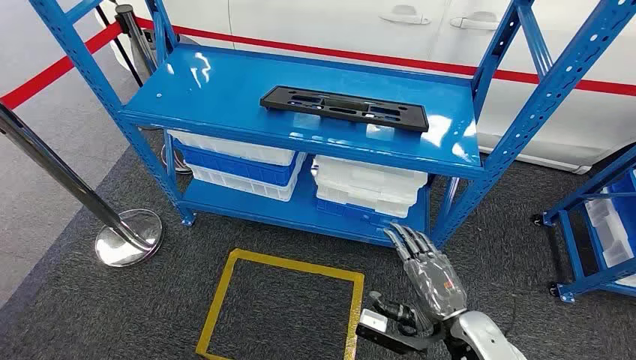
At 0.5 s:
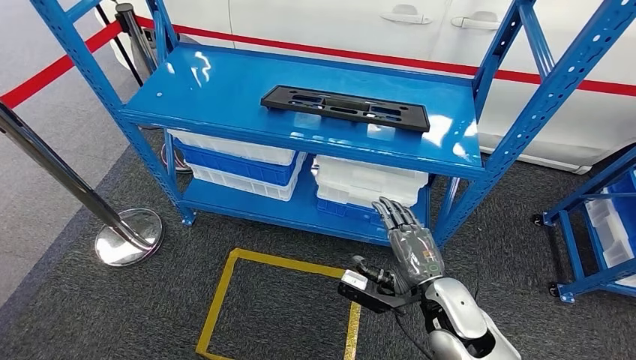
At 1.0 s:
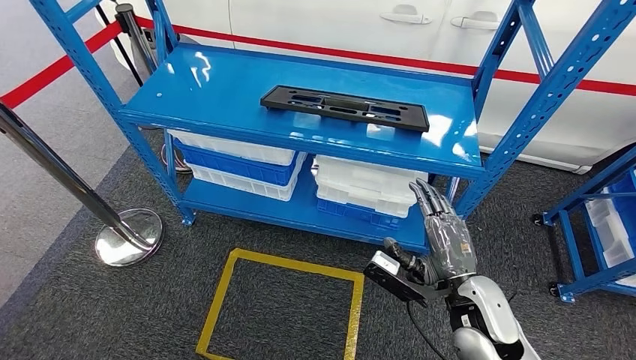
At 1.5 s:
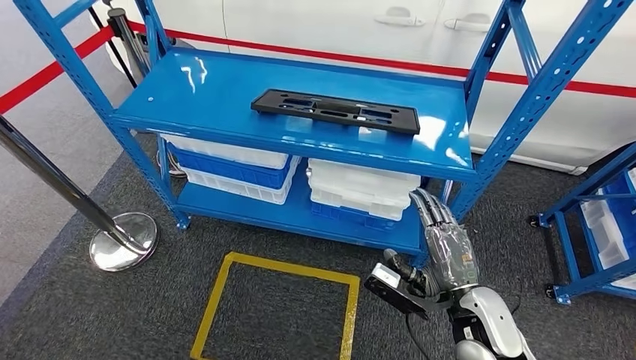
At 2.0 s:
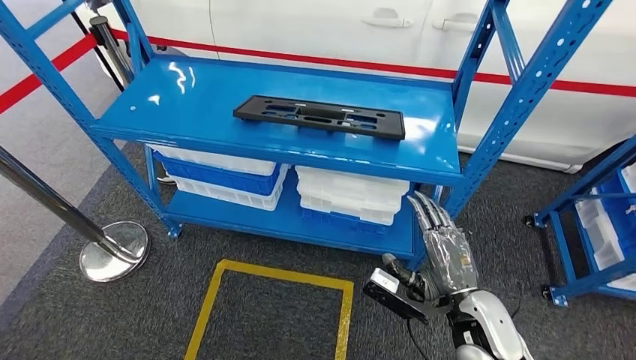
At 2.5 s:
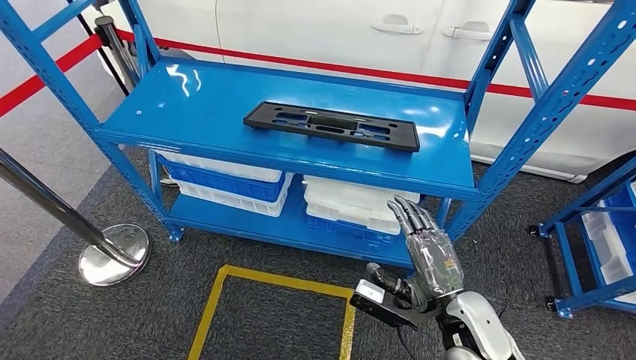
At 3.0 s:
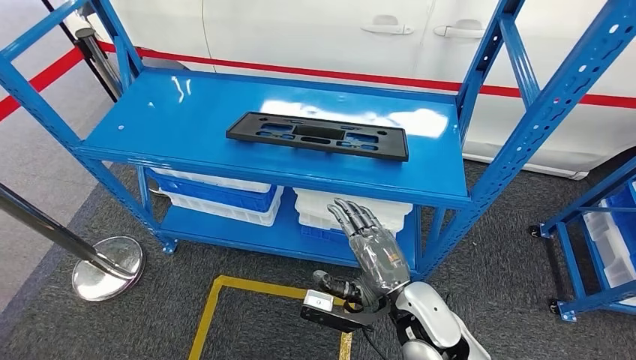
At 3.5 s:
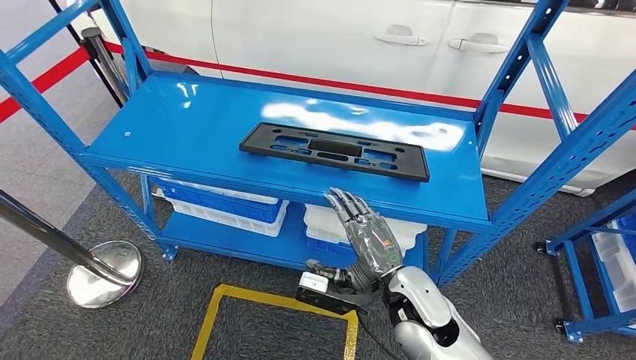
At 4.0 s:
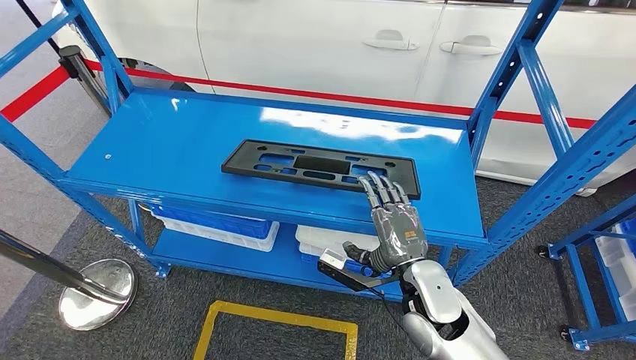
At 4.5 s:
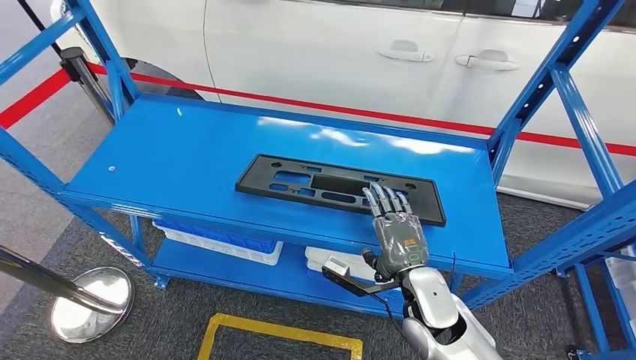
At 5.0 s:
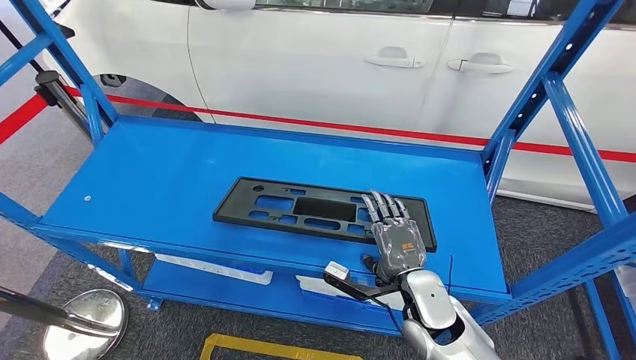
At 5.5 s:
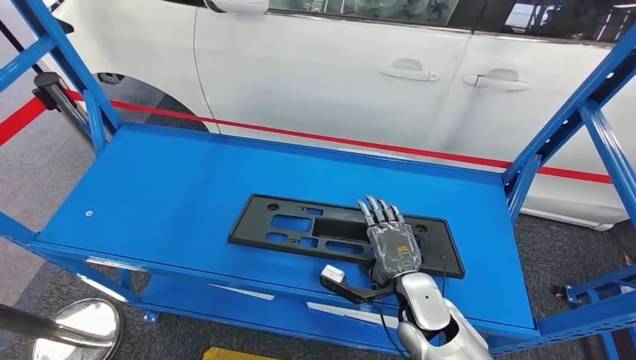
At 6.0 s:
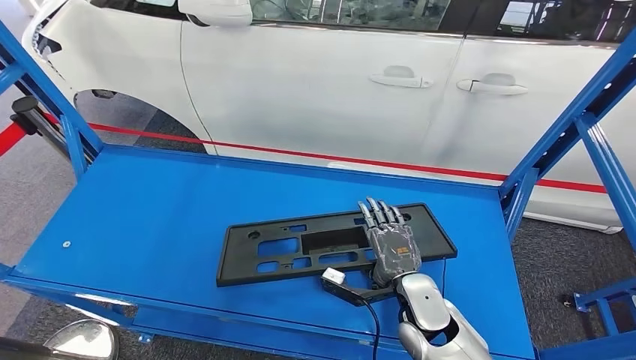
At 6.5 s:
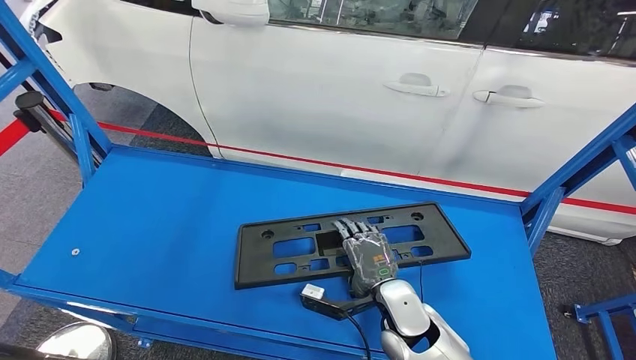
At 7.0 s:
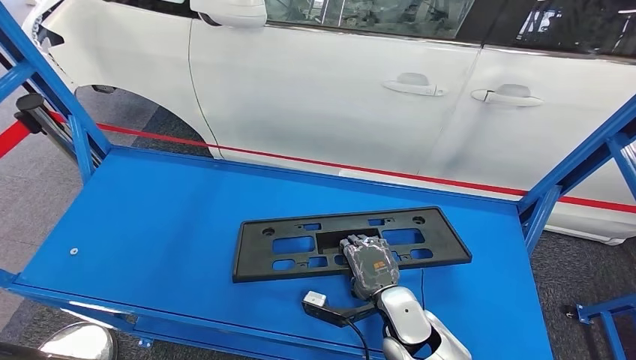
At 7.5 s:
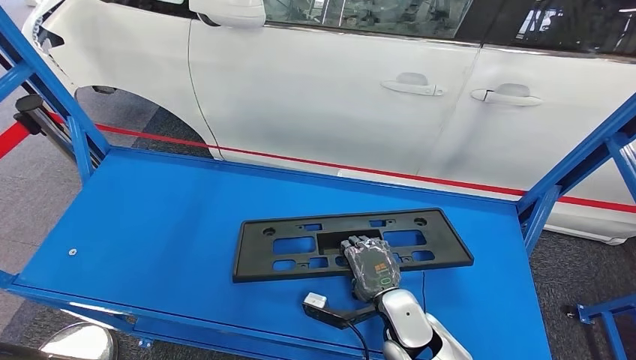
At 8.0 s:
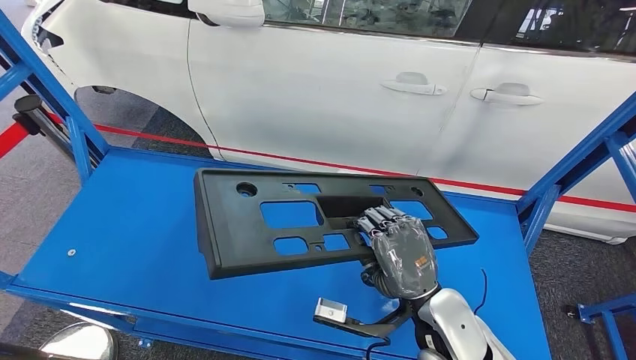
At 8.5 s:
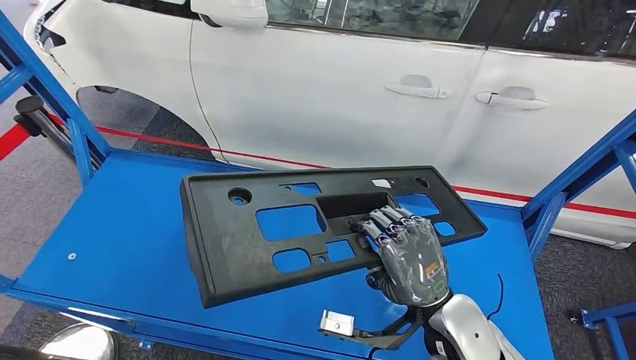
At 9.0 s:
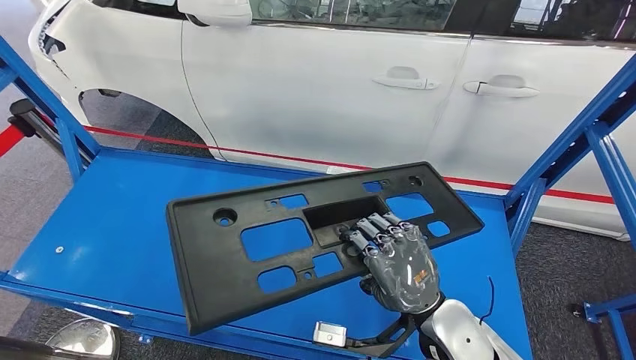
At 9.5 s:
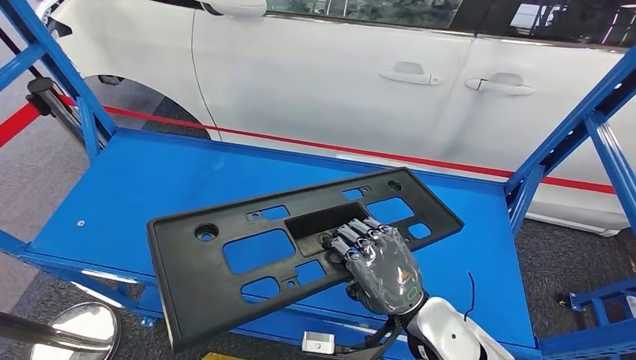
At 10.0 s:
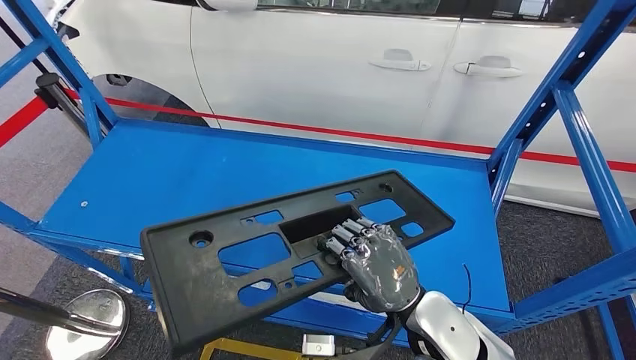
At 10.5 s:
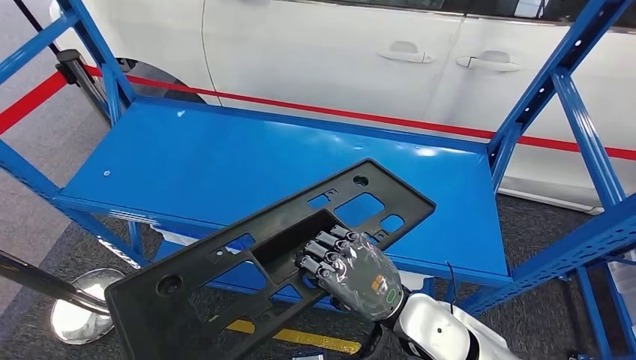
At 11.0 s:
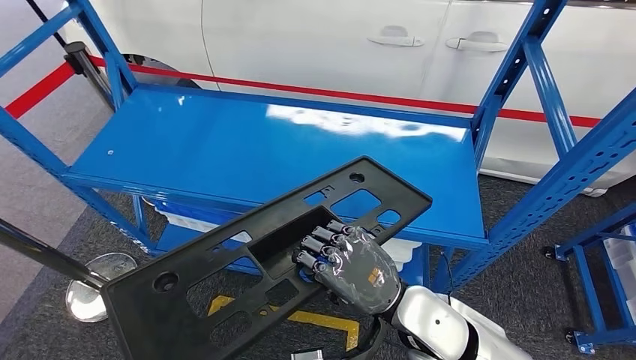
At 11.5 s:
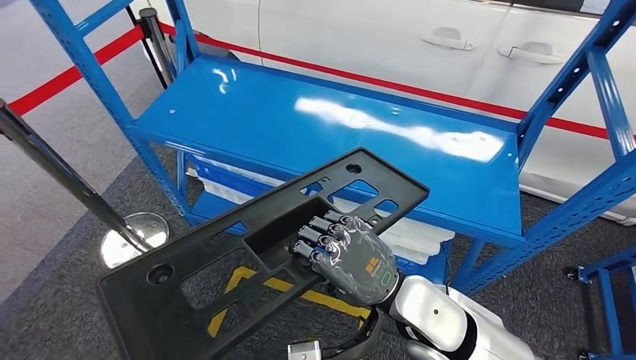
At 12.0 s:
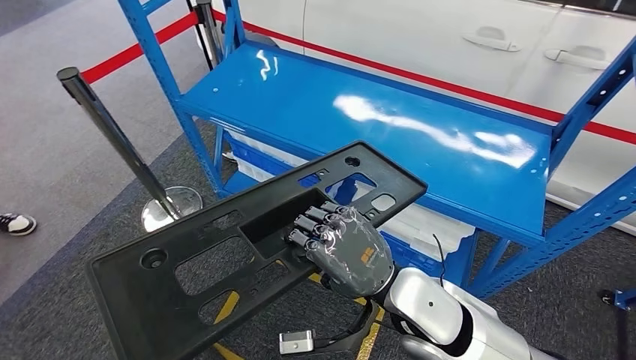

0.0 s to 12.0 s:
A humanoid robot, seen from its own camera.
Step, 0.0 to 12.0 s: Pick up the large material from the shelf.

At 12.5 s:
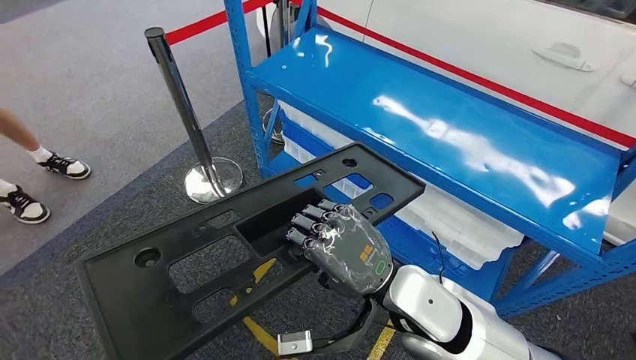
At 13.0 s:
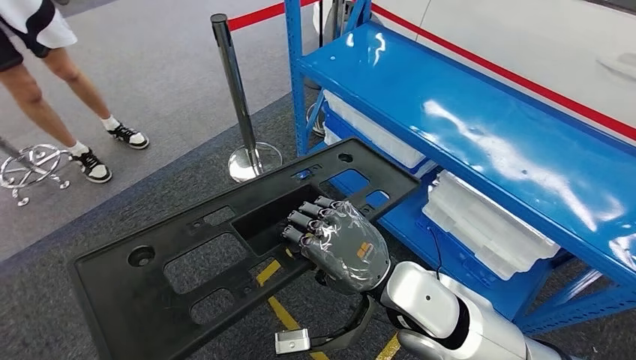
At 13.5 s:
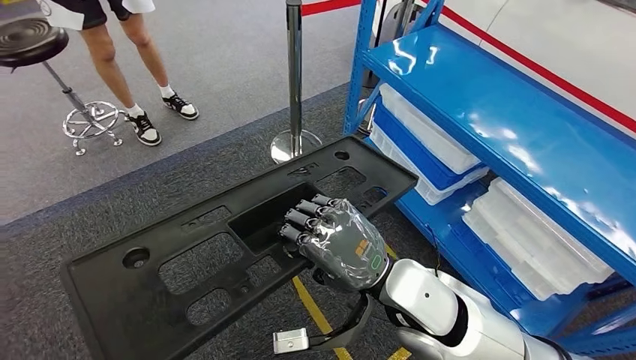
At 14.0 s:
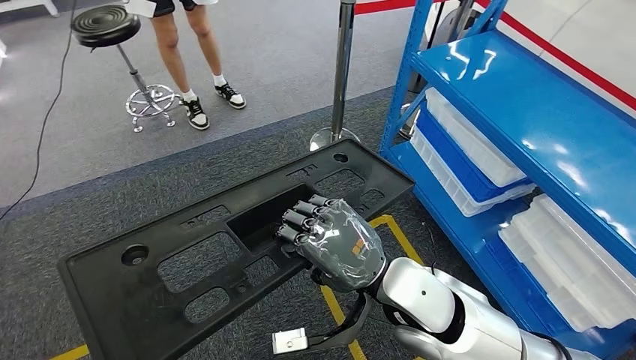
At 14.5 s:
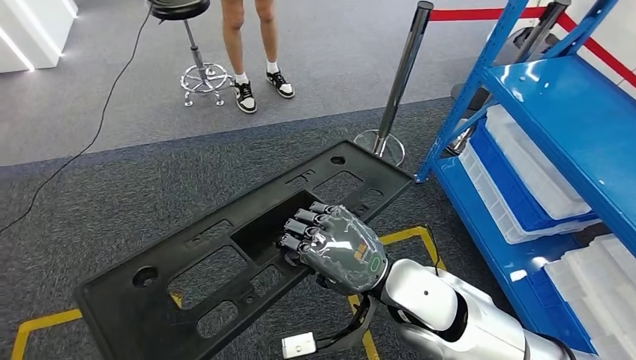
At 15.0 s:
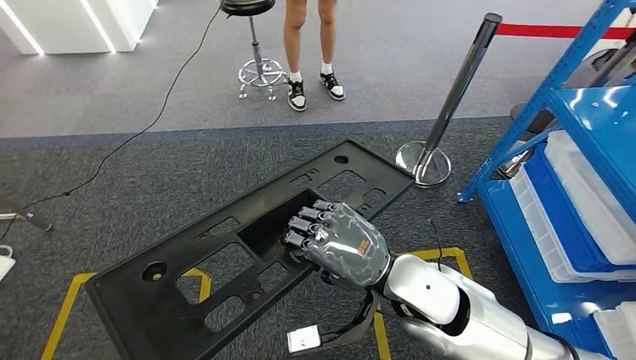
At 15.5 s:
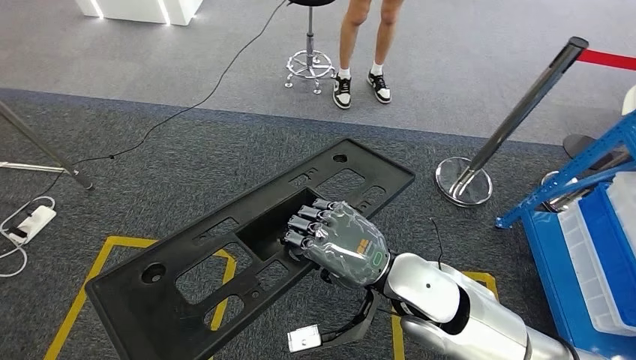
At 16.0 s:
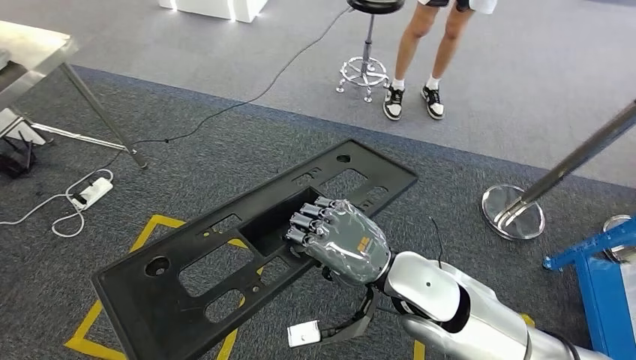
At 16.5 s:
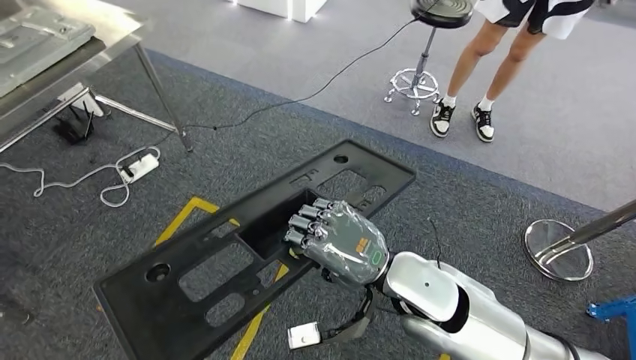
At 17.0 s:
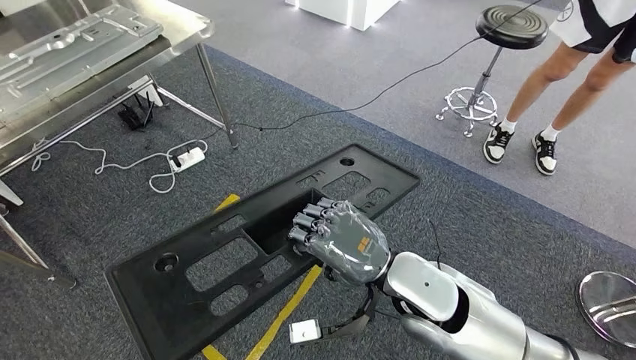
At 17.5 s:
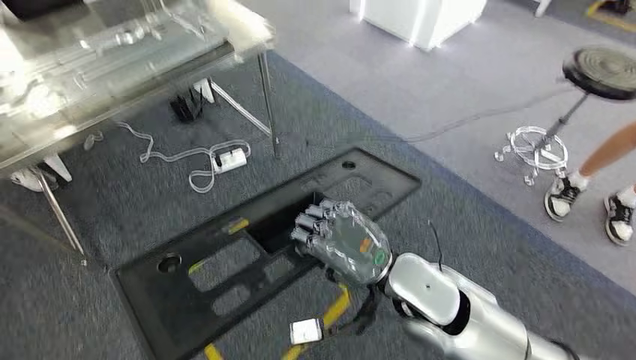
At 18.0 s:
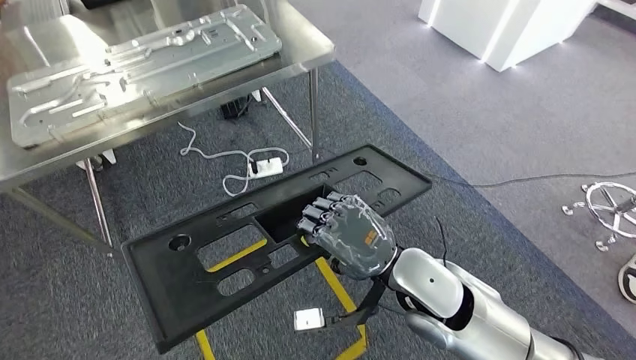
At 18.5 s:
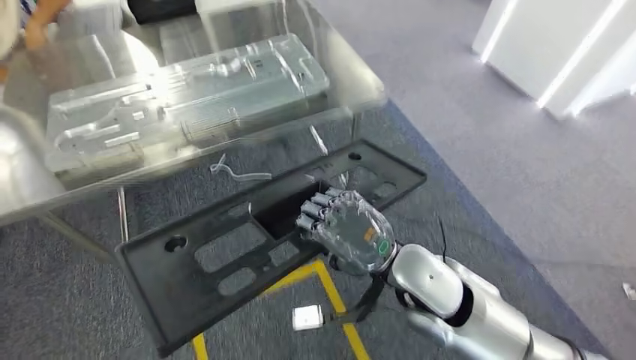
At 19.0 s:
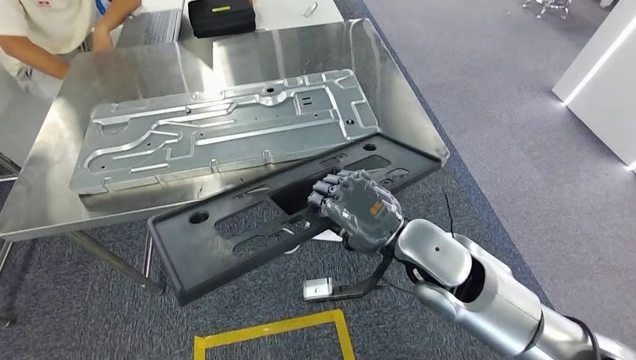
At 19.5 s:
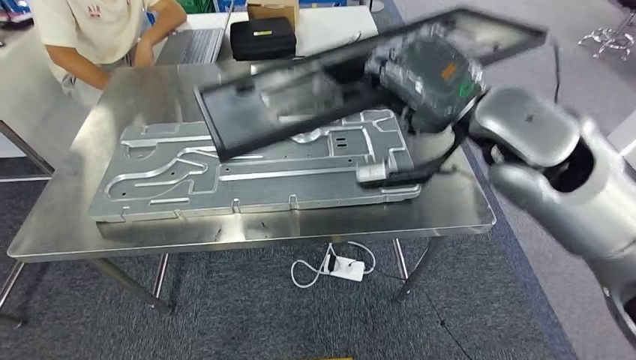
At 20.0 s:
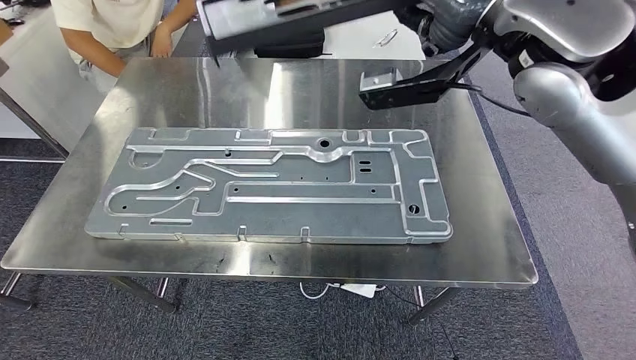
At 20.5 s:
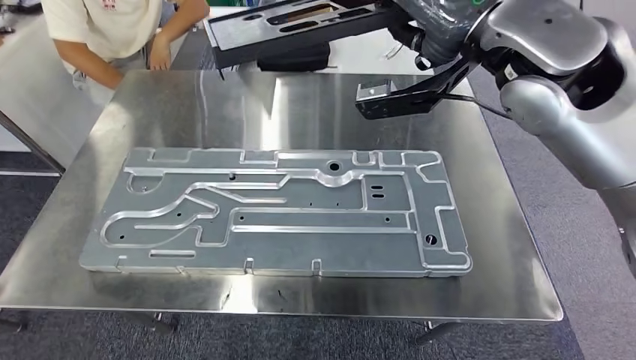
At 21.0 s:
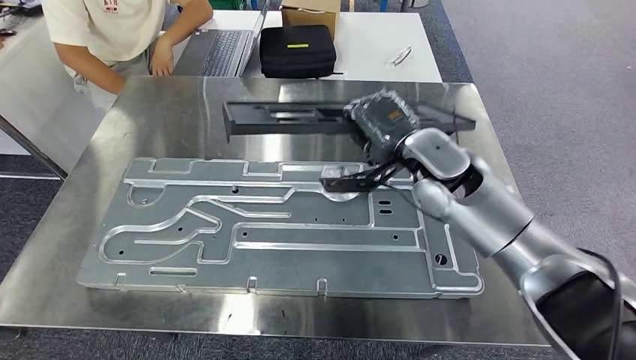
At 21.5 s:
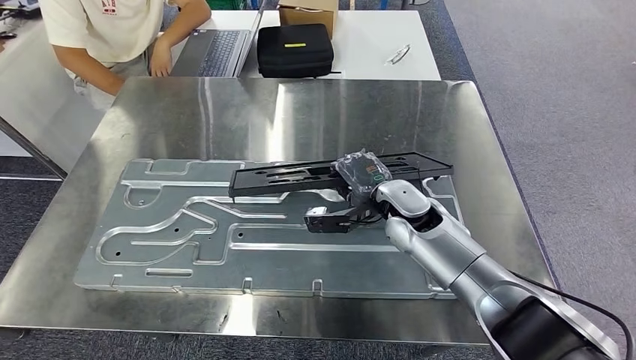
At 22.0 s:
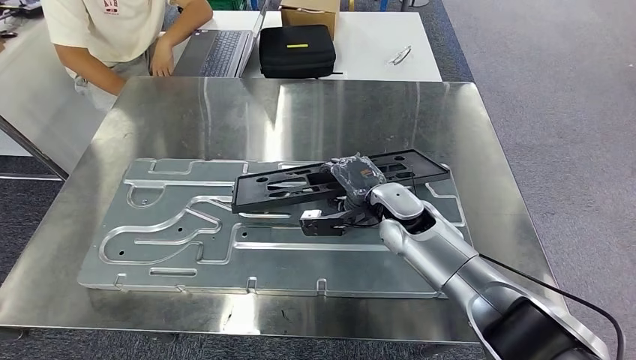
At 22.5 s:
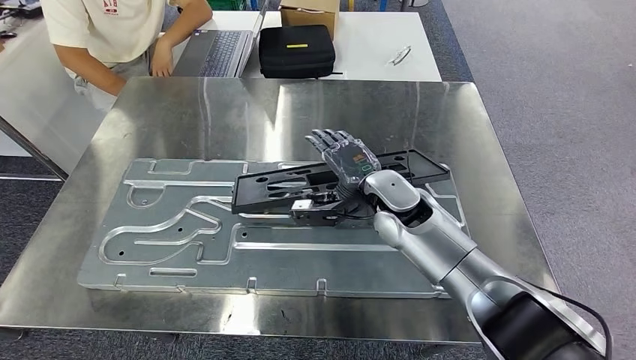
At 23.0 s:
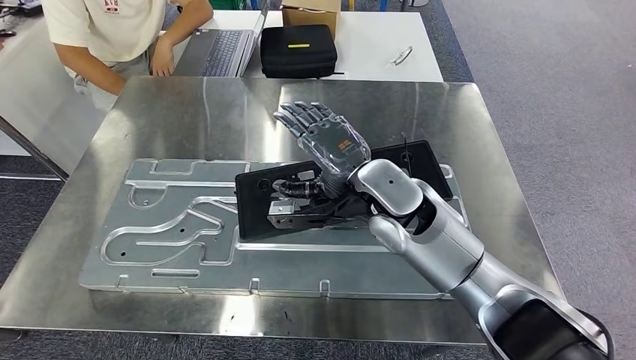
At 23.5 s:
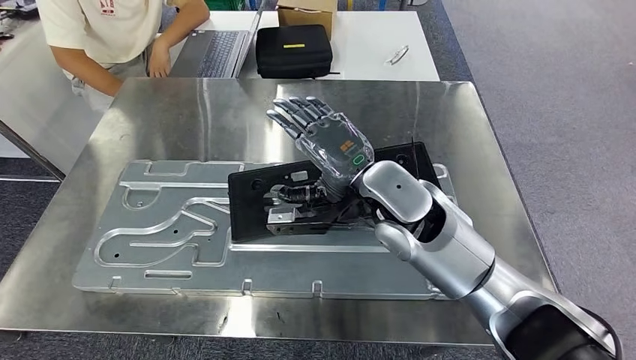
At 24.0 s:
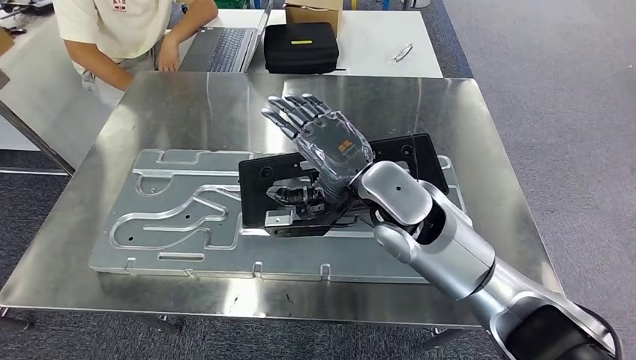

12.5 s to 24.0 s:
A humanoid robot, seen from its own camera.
Step, 12.5 to 19.0 s: Move the large material to the workbench.
